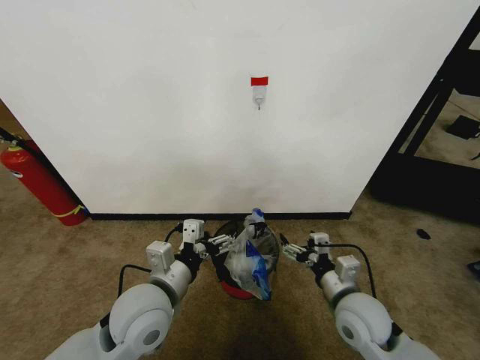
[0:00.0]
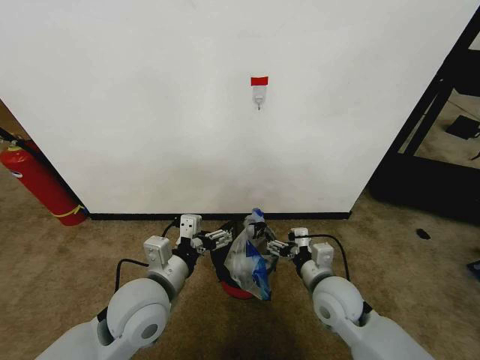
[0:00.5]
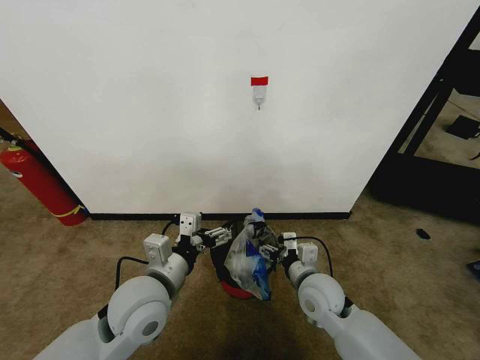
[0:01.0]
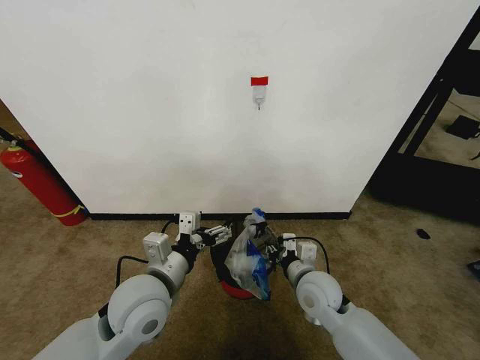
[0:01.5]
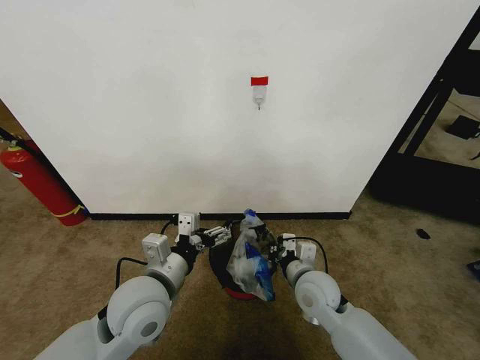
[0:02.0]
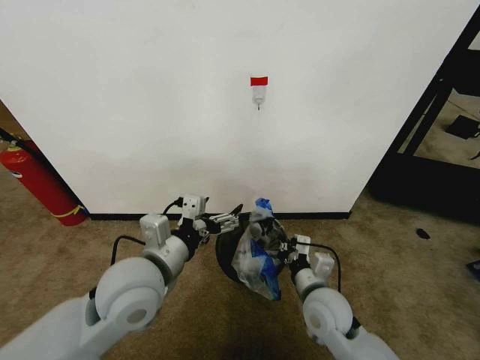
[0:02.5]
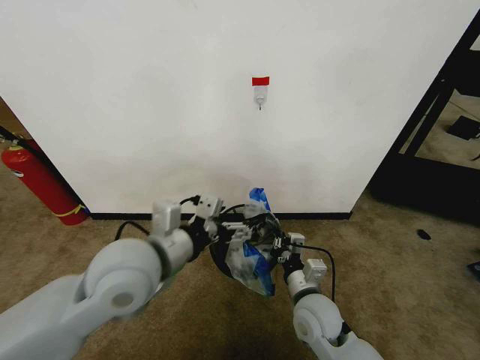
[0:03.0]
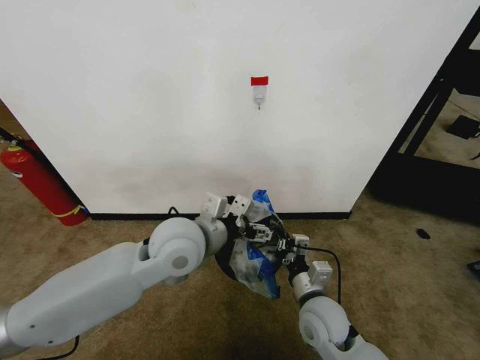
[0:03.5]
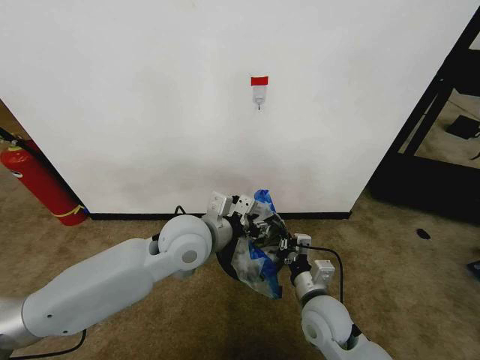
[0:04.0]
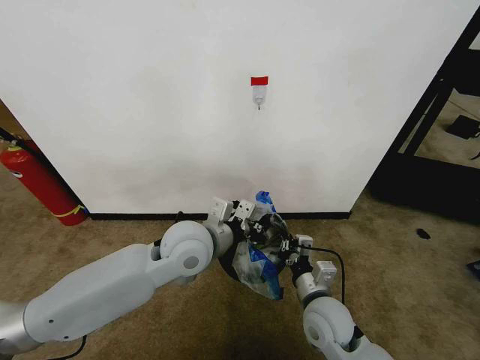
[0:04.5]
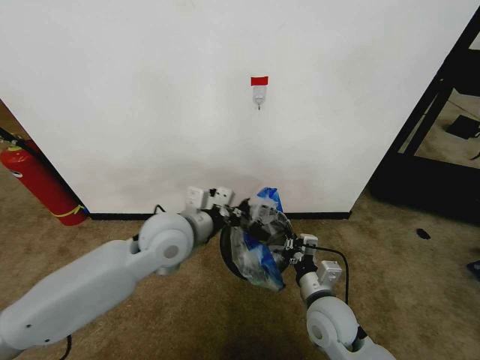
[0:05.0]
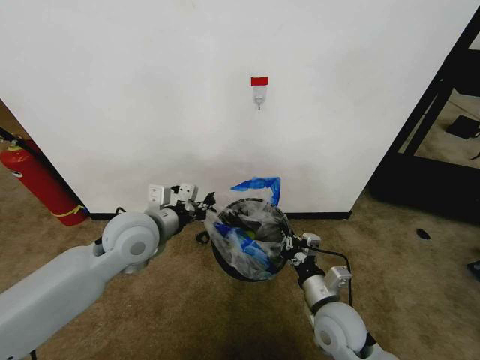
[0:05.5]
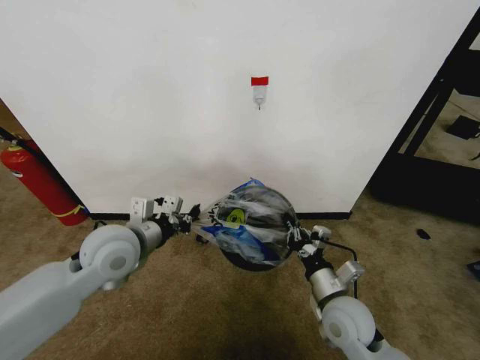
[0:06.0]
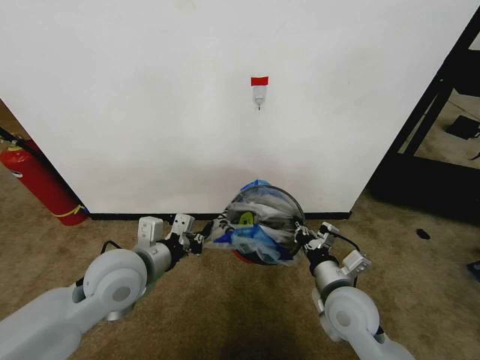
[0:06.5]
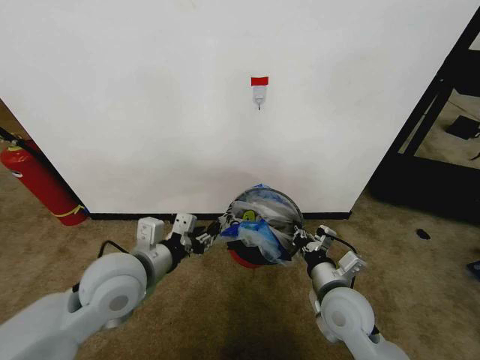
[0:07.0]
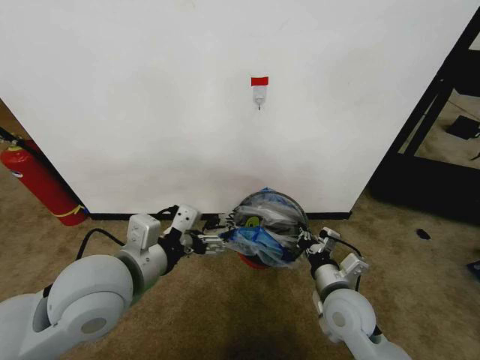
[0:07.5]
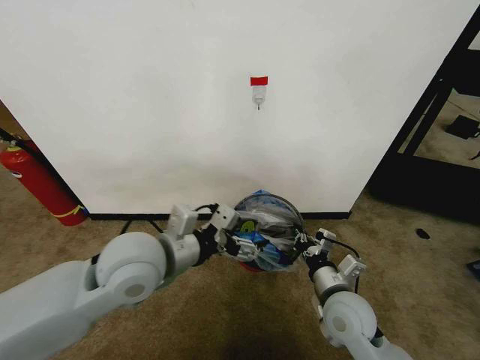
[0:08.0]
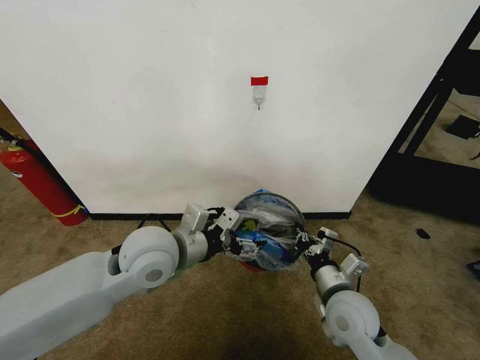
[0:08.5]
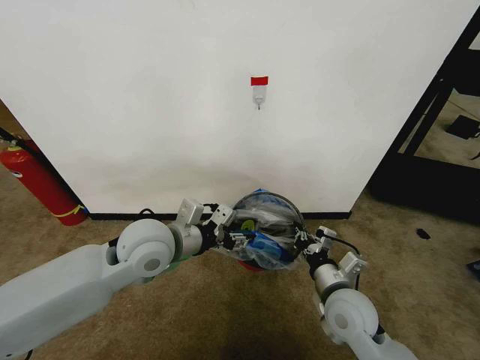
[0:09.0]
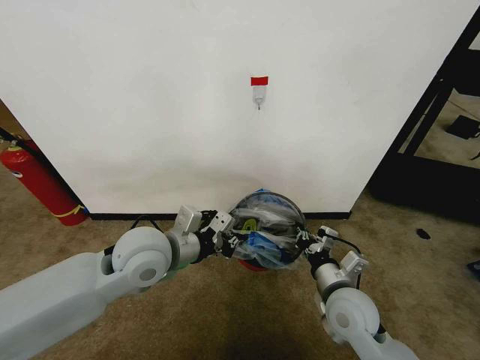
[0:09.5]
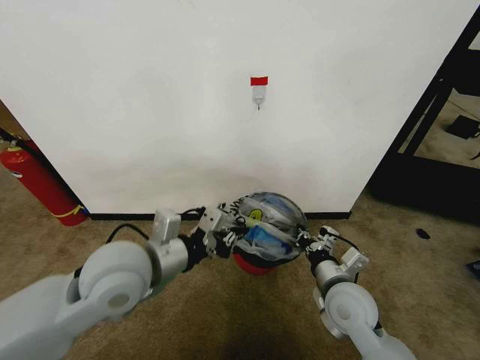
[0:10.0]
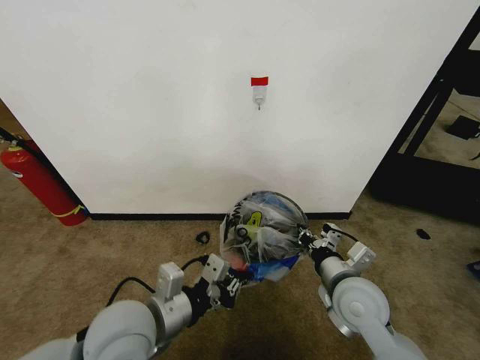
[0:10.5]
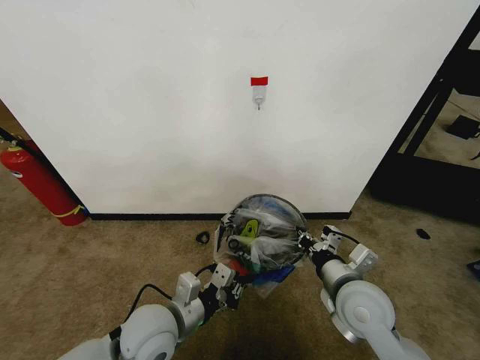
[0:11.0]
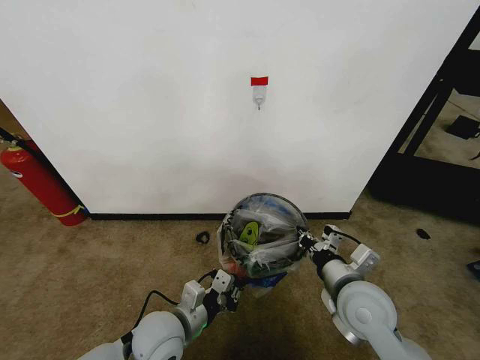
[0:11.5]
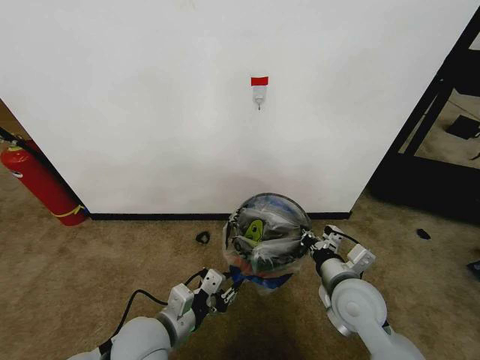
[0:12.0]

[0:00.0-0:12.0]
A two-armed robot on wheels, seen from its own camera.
Task of the whole recording: Pick up the garbage bag from the wall and place it over the trash bin.
0:00.0 to 0:02.0: The right gripper moves to the left and forward, about 10 cm, and closes its fingers.
0:02.0 to 0:04.0: The right gripper is displaced backward by roughly 5 cm; the left gripper is displaced forward and to the right by roughly 10 cm, and closes up.
0:04.0 to 0:06.0: The left gripper travels to the left by some 15 cm, and closes up.
0:06.0 to 0:08.0: The left gripper shifts approximately 5 cm to the right, and opens.
0:08.0 to 0:10.0: The left gripper closes its fingers.
0:10.0 to 0:12.0: The left gripper is displaced downward and backward by about 15 cm, and opens.

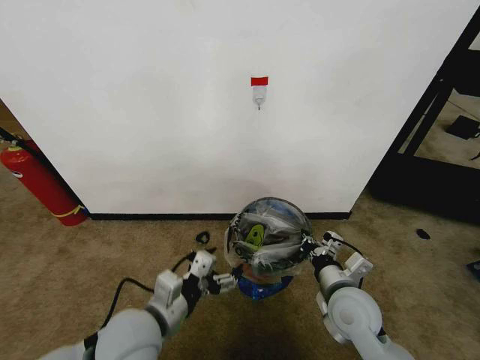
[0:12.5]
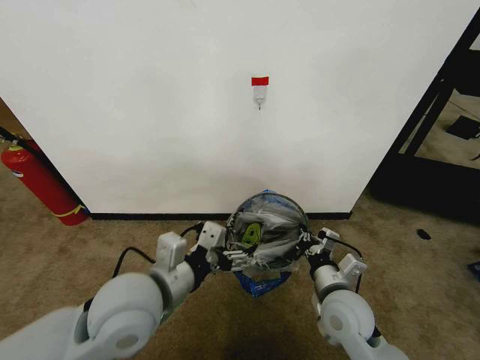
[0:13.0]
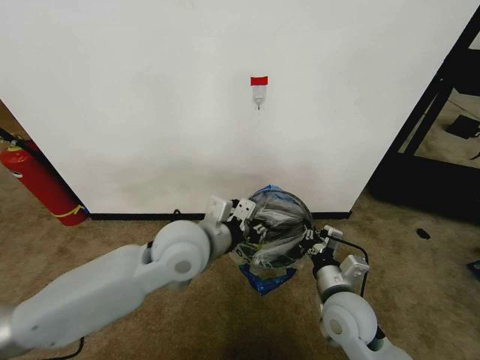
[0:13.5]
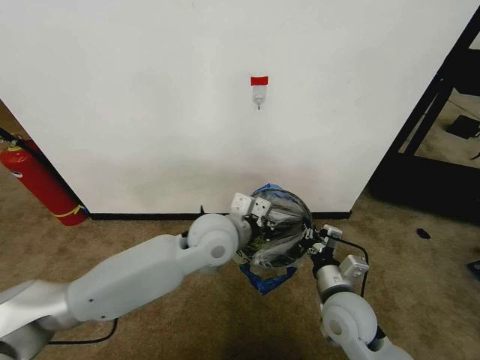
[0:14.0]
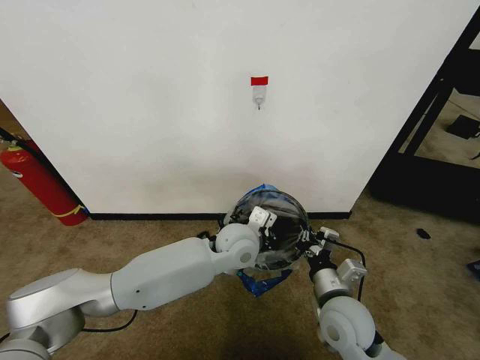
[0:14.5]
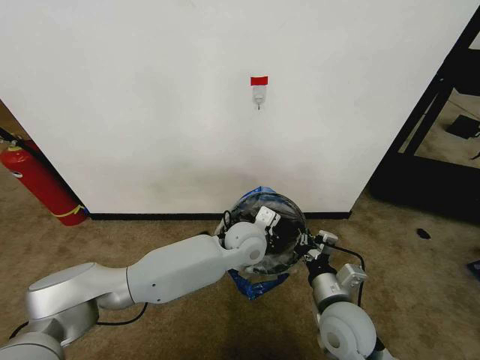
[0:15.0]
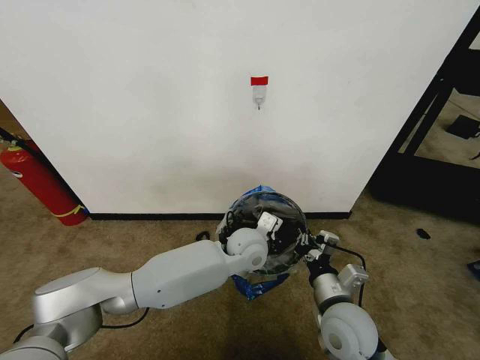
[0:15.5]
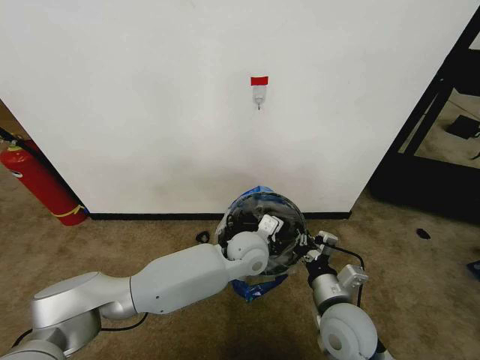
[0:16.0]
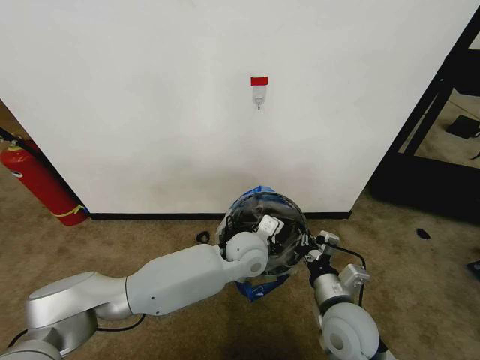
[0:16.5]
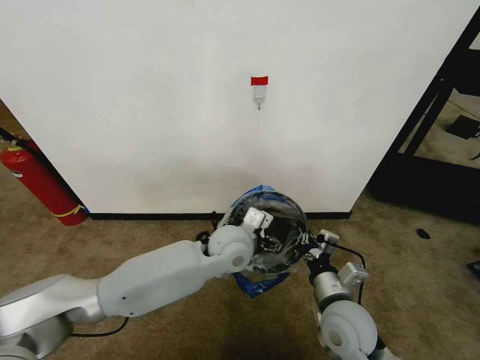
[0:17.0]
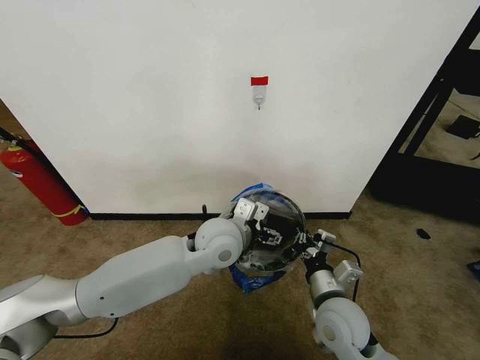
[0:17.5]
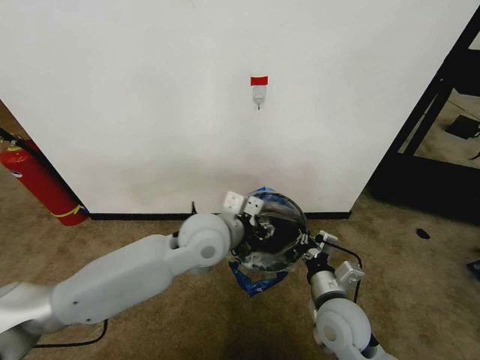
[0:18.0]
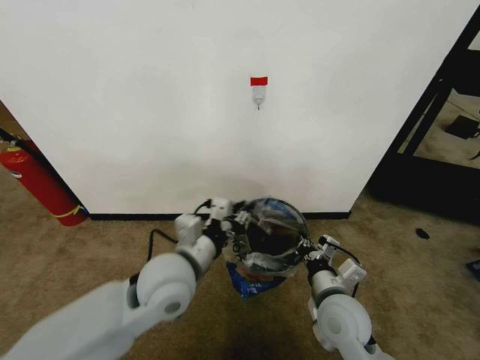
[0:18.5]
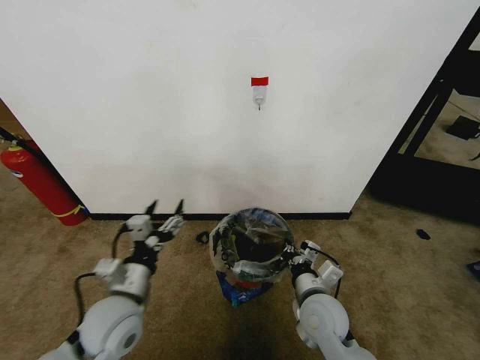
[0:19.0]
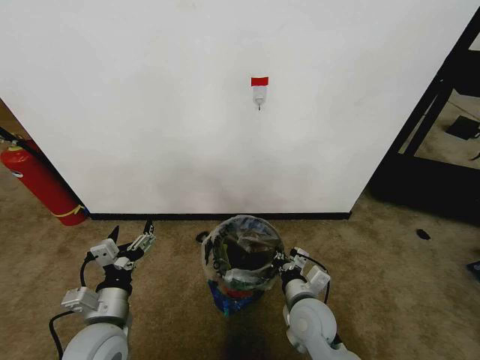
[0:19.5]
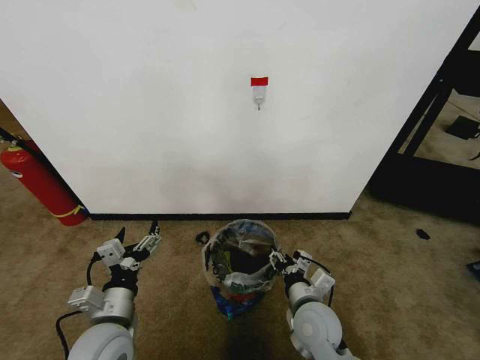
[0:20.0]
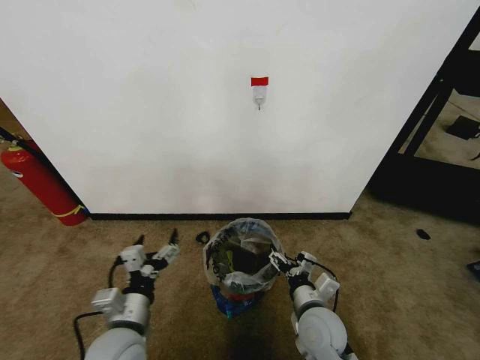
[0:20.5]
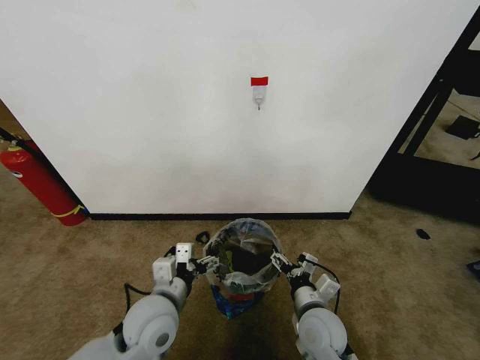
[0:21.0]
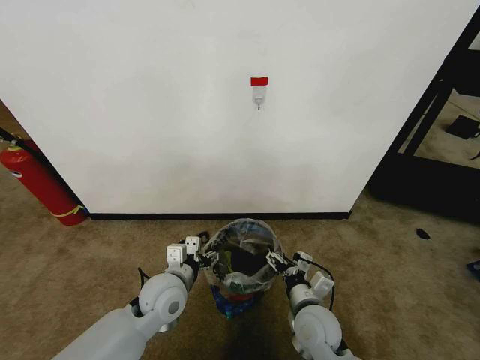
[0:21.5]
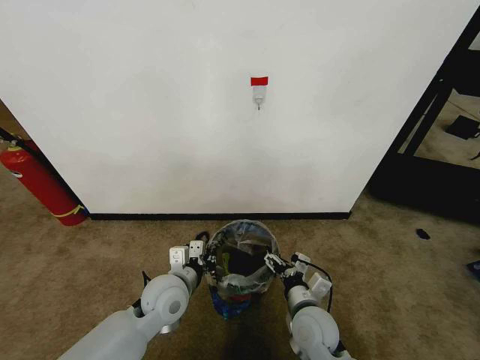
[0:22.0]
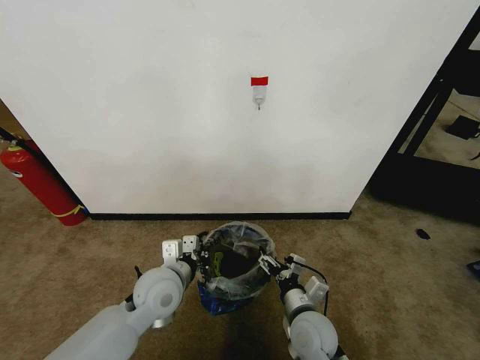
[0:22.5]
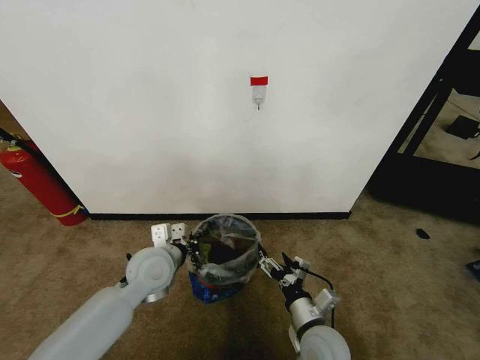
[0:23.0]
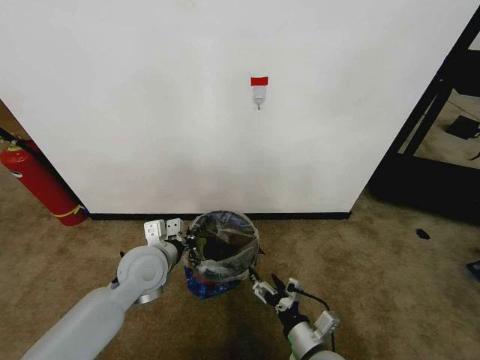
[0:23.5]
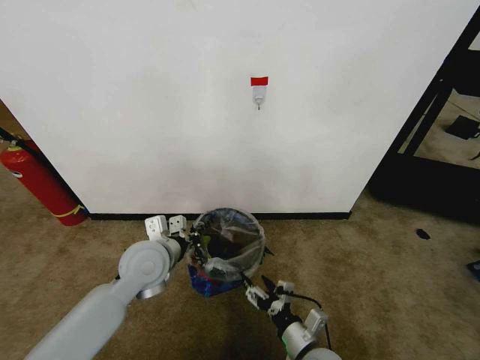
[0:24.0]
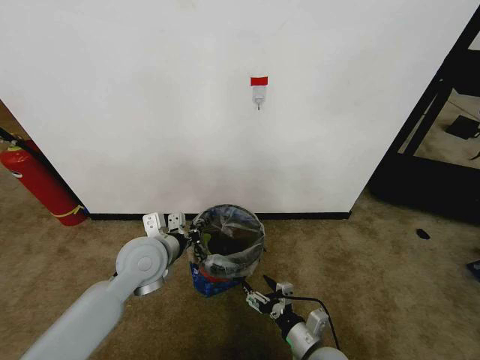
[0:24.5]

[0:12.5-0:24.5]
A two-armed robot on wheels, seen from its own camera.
Task of the whole recording: Pick up the garbage bag from the wall and place it over the trash bin.
0:12.5 to 0:14.5: The left gripper heads forward and to the right, covering approximately 25 cm, and closes up.
0:14.5 to 0:16.5: The left gripper opens up.
0:16.5 to 0:18.5: The left gripper heads to the left, backward and upward, covering some 20 cm, and closes up.
0:18.5 to 0:20.5: The left gripper goes some 15 cm downward, to the left and backward, and opens. The right gripper moves downward, approximately 5 cm, and opens its fingers.
0:20.5 to 0:22.5: The left gripper heads forward, covering roughly 10 cm, and closes up.
0:22.5 to 0:24.5: The left gripper heads upward, covering approximately 5 cm. Meanwhile the right gripper goes roughly 5 cm backward.

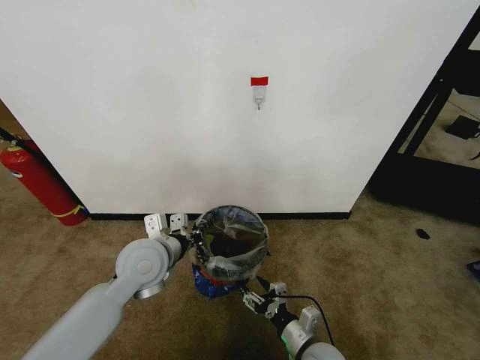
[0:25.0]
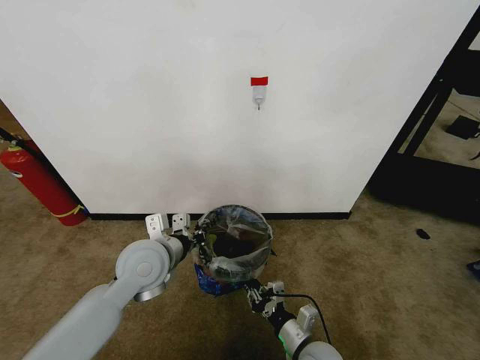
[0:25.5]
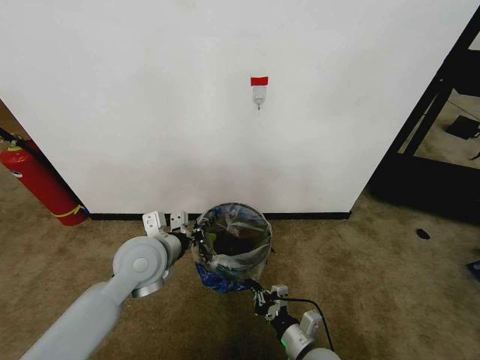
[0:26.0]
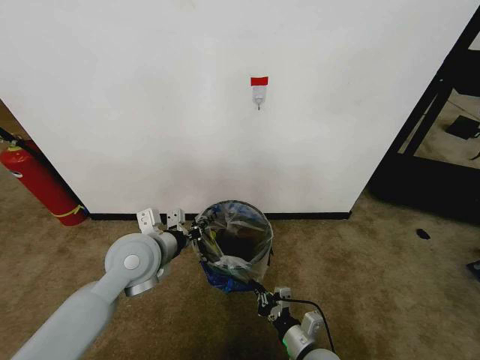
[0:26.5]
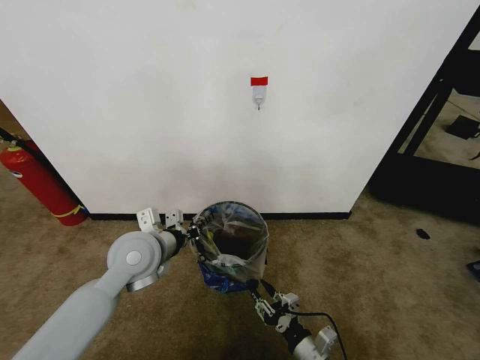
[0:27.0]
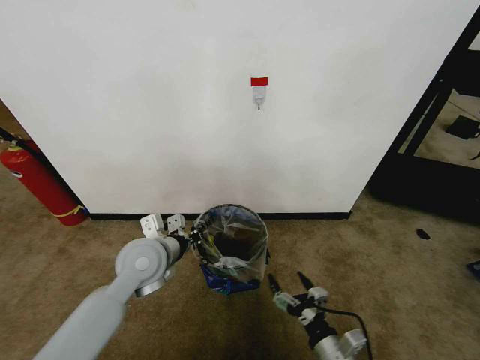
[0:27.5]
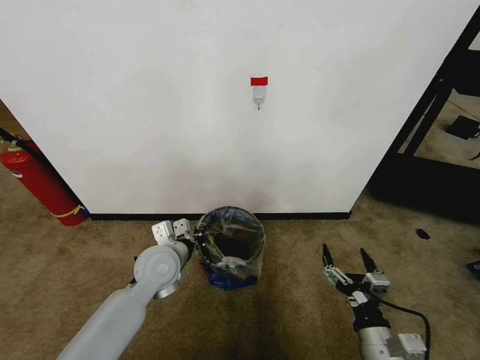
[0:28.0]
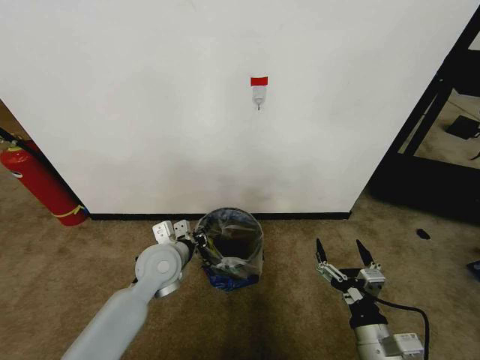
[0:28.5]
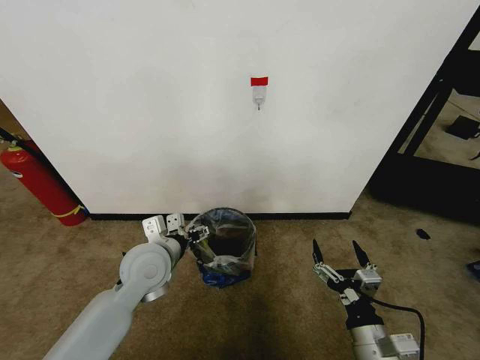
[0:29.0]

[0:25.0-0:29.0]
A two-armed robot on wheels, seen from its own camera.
Task of the whole recording: Pick up the garbage bag from the wall and place it over the trash bin.
0:25.0 to 0:27.0: The right gripper closes, then opens again.
0:27.0 to 0:29.0: The left gripper opens its fingers. The right gripper is displaced upward by approximately 10 cm, and opens up.
